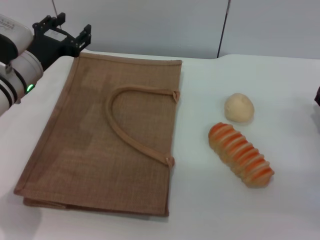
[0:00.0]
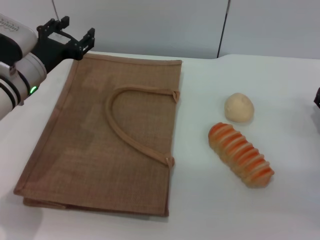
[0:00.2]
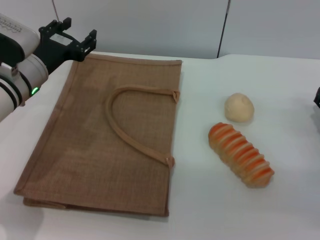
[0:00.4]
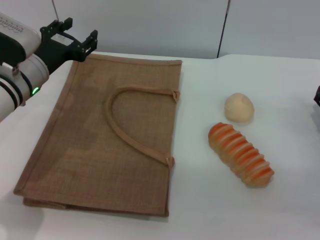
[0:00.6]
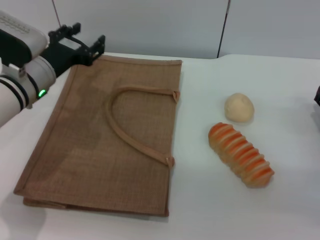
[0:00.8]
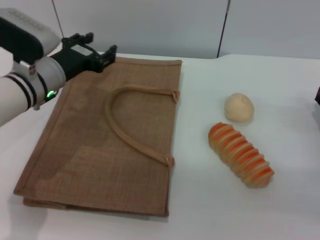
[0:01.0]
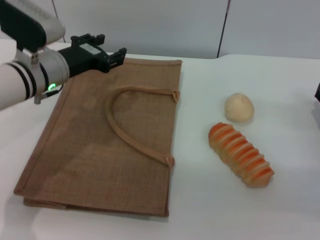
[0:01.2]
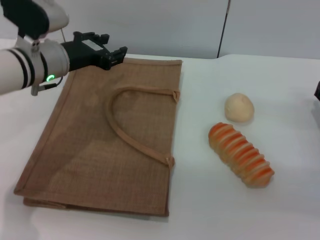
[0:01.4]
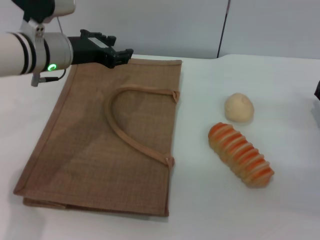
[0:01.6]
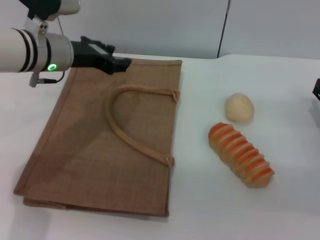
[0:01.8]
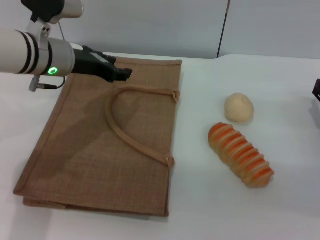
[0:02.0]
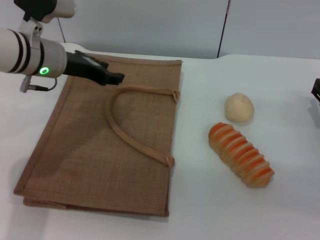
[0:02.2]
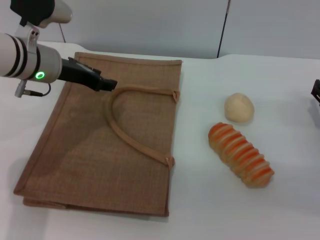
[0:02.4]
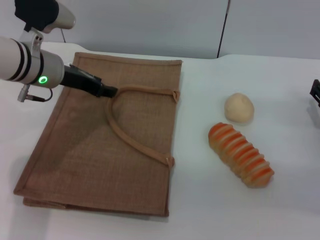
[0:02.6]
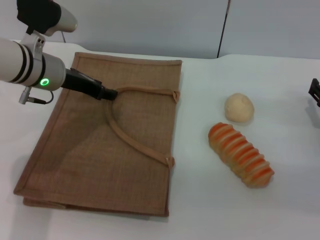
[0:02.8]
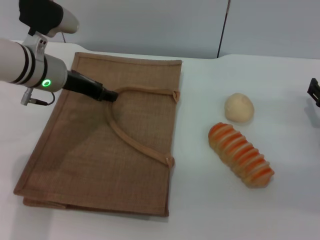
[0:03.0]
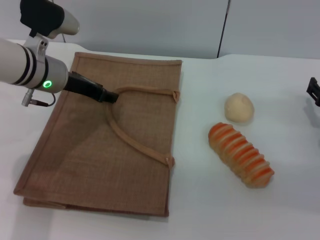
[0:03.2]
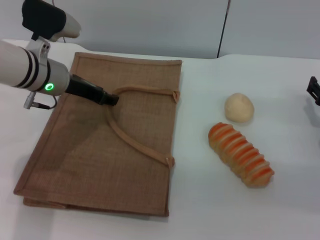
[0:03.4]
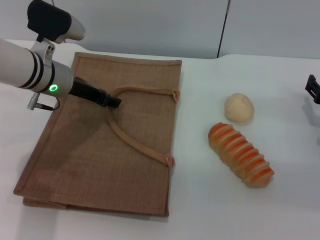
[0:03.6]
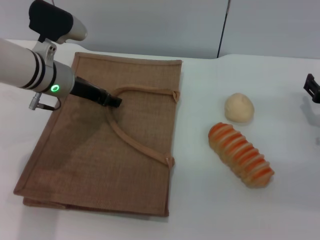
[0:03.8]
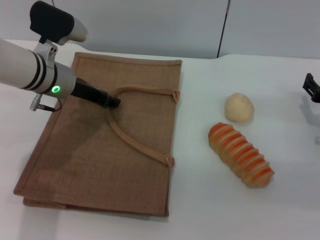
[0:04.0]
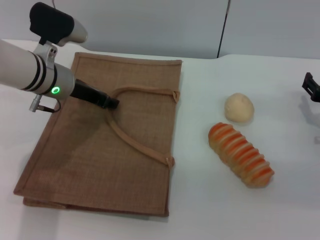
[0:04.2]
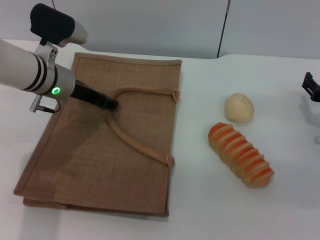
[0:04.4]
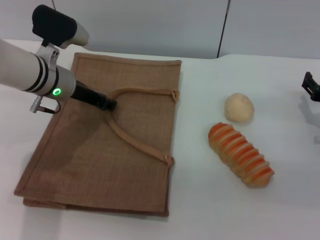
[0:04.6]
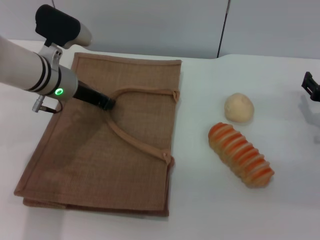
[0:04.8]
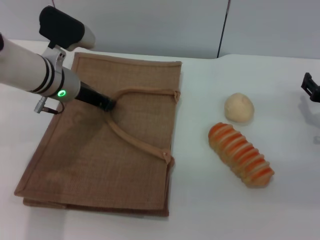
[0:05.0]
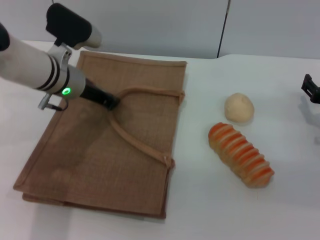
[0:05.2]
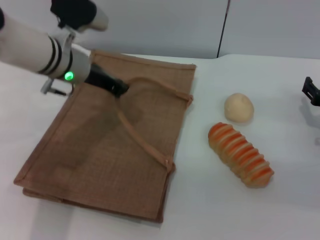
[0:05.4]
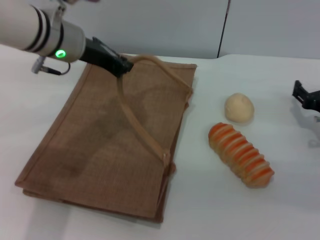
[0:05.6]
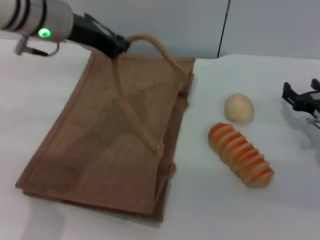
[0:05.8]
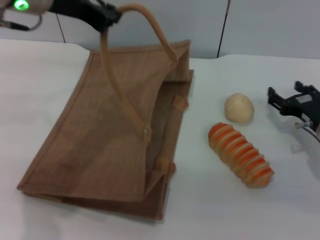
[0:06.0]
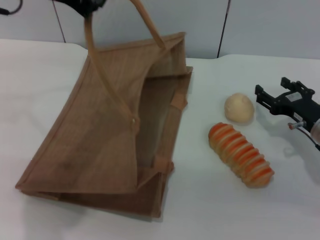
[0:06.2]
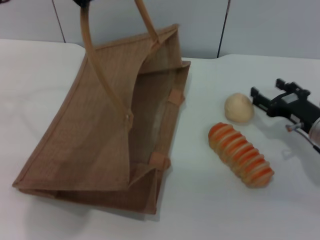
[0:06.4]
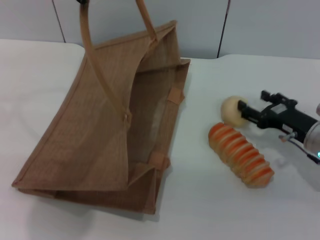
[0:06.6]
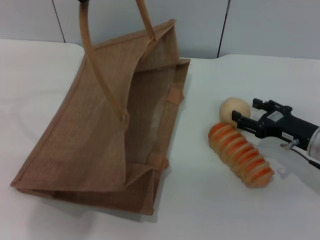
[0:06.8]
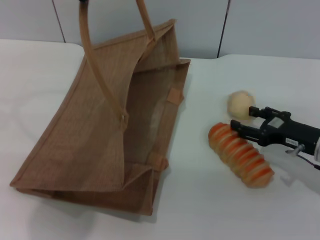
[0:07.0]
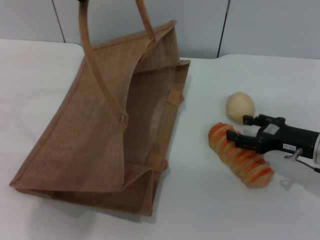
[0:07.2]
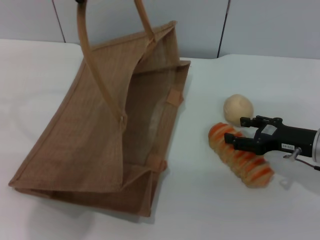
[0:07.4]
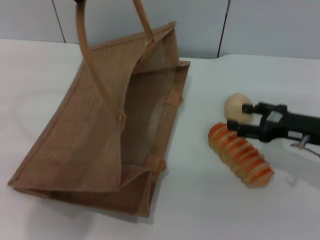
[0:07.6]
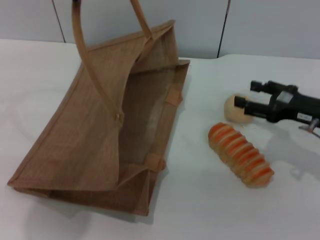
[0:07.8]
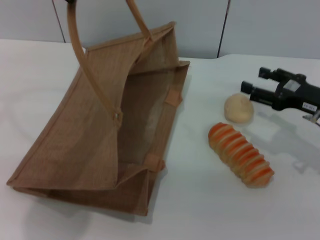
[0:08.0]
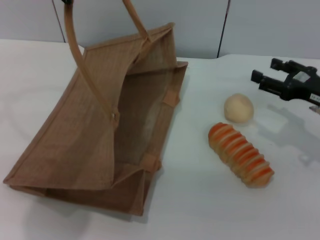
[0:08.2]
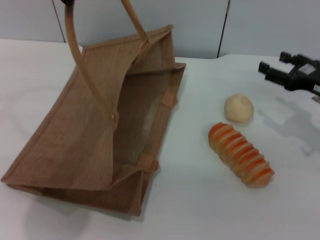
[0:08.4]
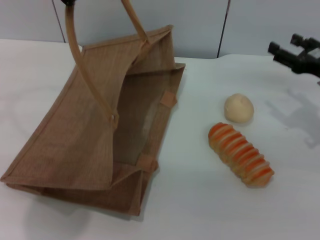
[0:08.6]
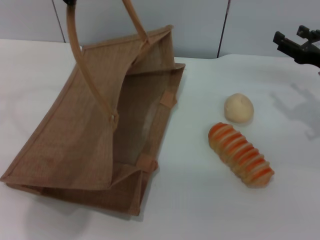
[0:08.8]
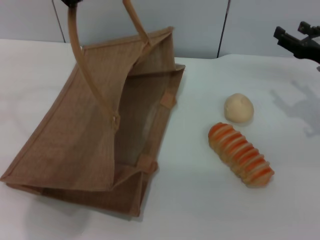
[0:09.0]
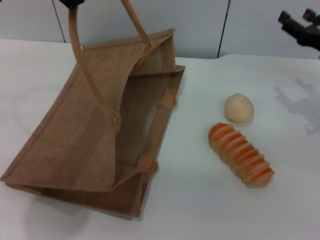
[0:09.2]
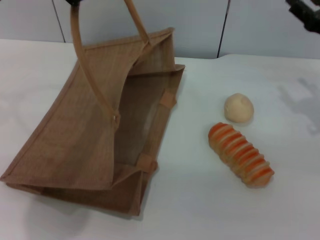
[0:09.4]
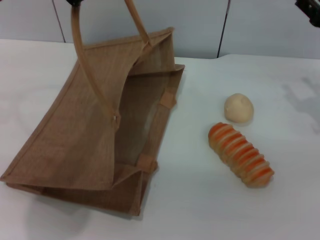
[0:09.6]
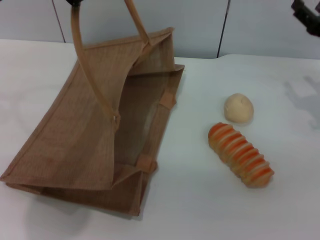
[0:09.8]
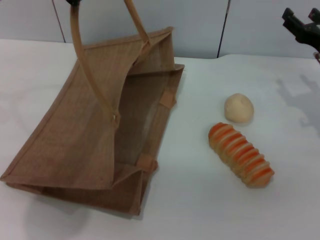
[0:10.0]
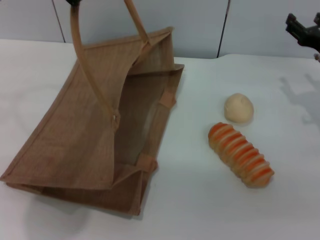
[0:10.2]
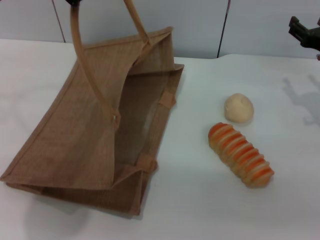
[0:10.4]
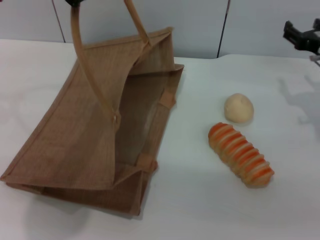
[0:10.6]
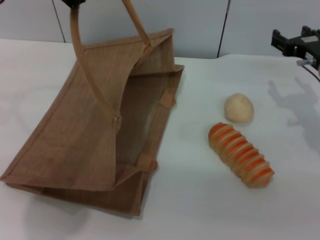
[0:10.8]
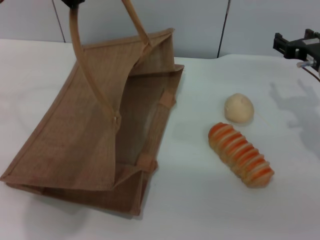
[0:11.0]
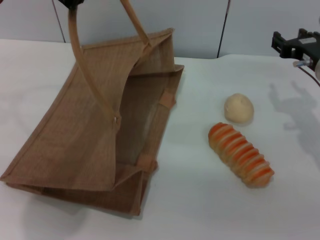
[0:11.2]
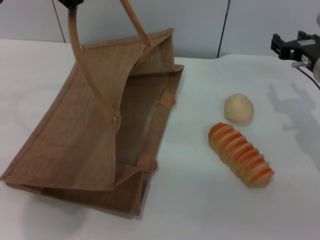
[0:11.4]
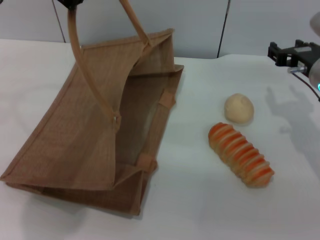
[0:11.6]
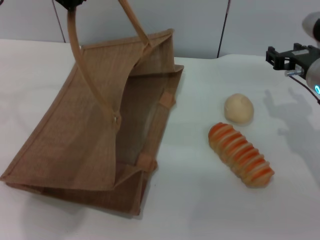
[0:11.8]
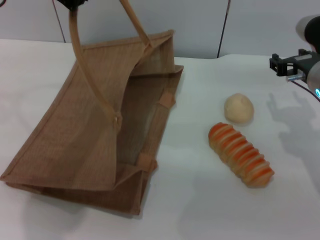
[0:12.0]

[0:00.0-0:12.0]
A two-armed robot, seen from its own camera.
Task of the whole recording: pick up the bread and egg yolk pastry from the table and place it in the brown handbag.
Step, 0:00.0 to 0:05.4: Lift the woven bag with the left gripper to open it.
0:00.0 to 0:01.6: The left gripper changes place by roughly 5 cm.
0:03.0 to 0:04.4: The grippers stay close to where they were, moving slightly.
0:04.4 to 0:06.0: The left gripper is displaced upward by about 15 cm, and closes up.
0:06.0 to 0:07.6: The left gripper is displaced upward by roughly 5 cm.
0:07.6 to 0:09.0: The right gripper moves forward, about 5 cm.
0:09.0 to 0:10.4: The grippers make only small movements.
0:10.4 to 0:12.0: The right gripper goes approximately 5 cm to the left.

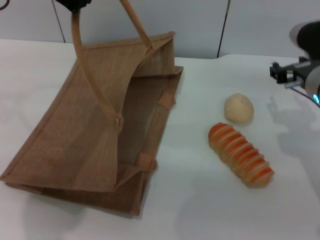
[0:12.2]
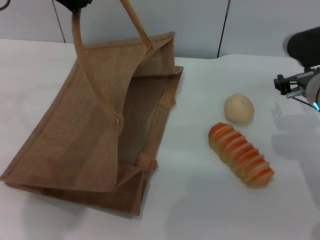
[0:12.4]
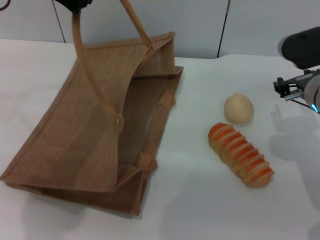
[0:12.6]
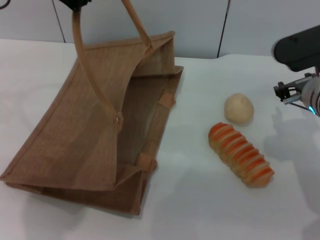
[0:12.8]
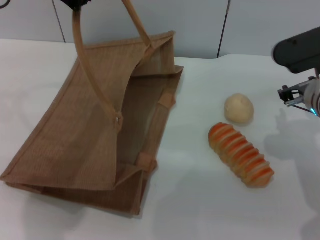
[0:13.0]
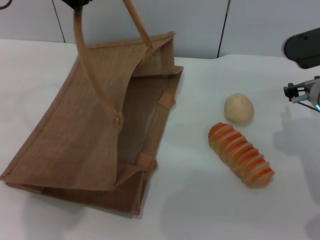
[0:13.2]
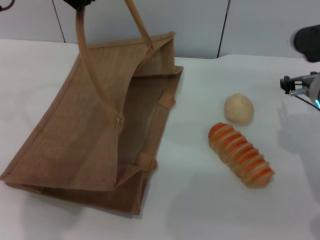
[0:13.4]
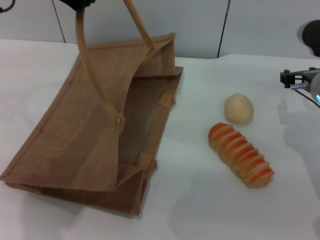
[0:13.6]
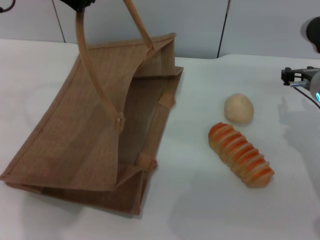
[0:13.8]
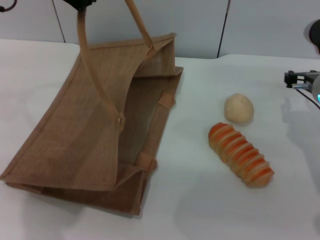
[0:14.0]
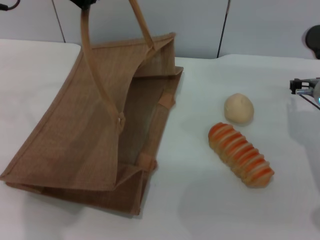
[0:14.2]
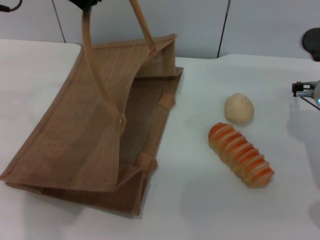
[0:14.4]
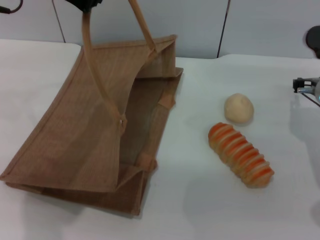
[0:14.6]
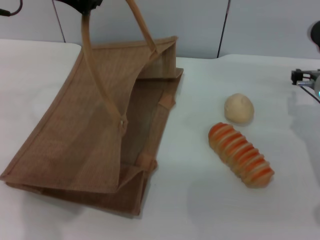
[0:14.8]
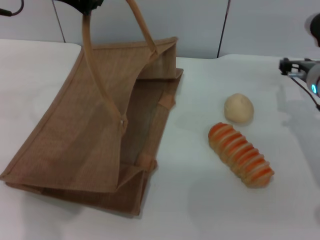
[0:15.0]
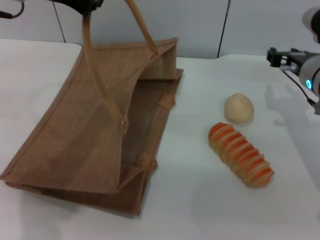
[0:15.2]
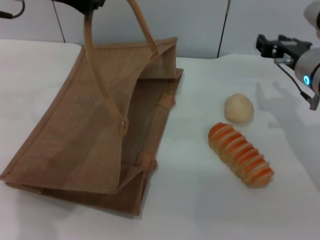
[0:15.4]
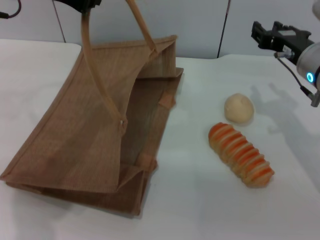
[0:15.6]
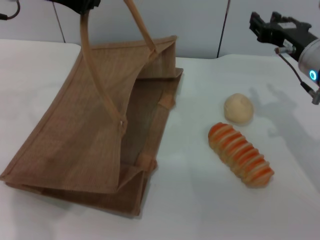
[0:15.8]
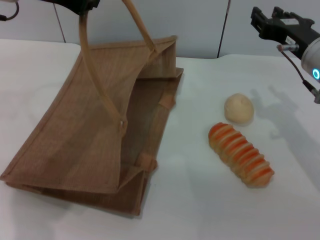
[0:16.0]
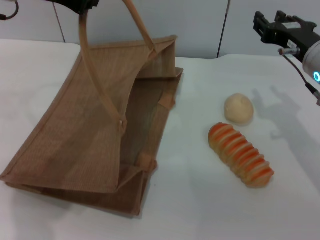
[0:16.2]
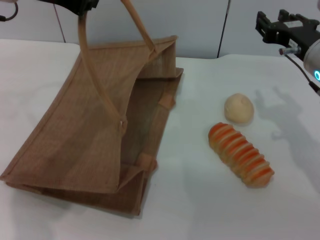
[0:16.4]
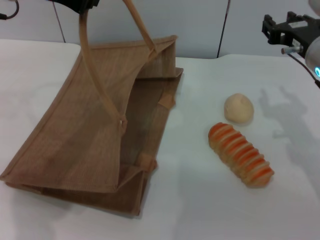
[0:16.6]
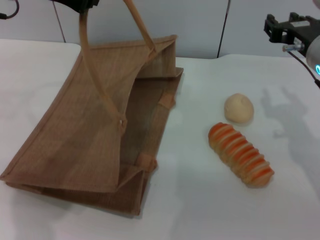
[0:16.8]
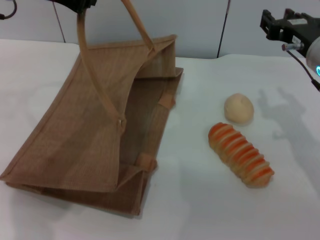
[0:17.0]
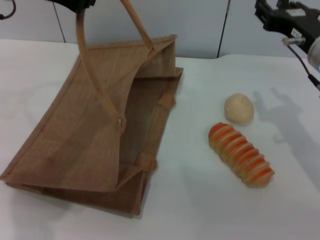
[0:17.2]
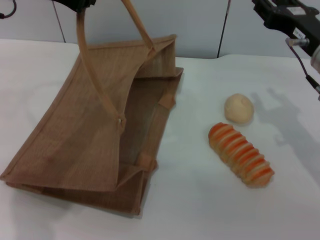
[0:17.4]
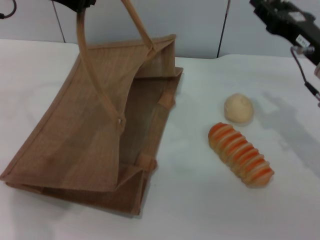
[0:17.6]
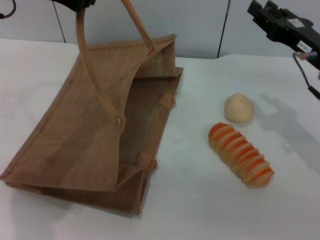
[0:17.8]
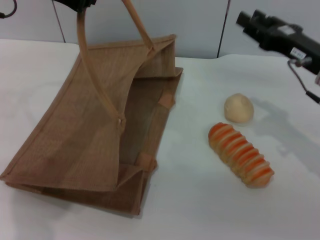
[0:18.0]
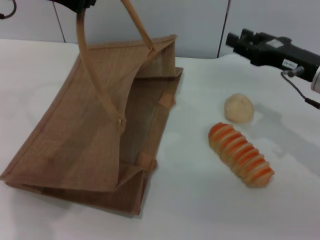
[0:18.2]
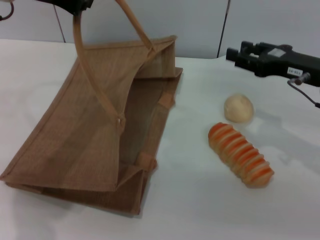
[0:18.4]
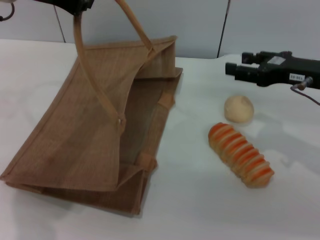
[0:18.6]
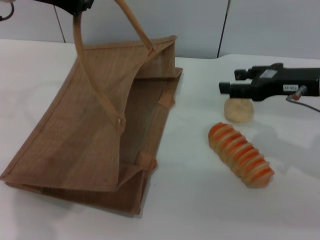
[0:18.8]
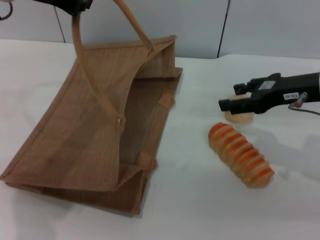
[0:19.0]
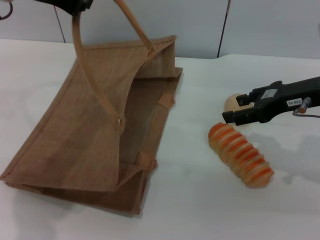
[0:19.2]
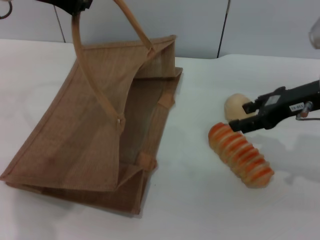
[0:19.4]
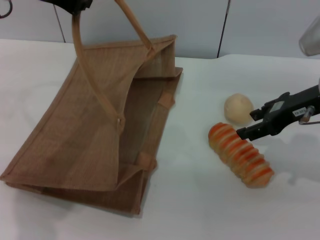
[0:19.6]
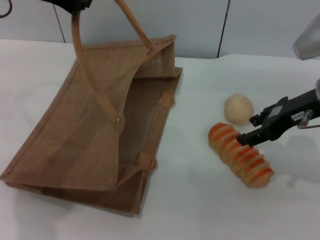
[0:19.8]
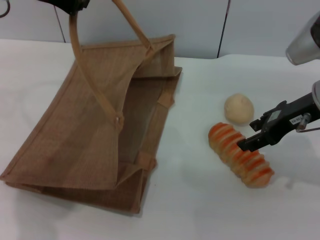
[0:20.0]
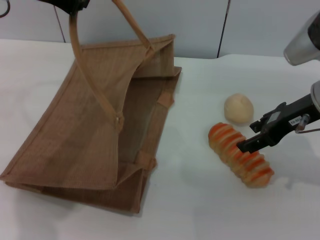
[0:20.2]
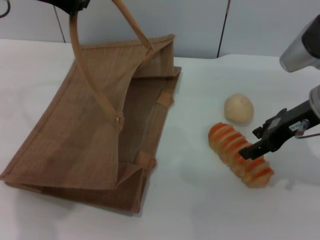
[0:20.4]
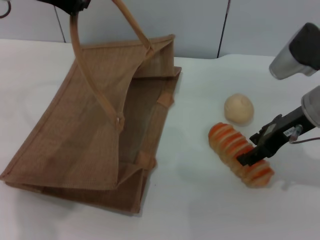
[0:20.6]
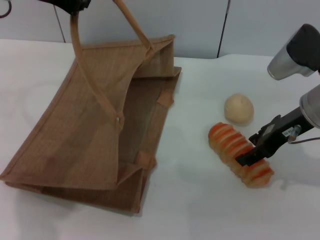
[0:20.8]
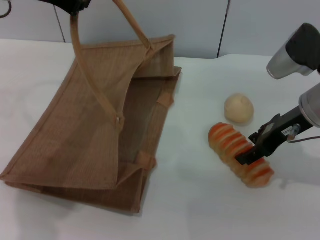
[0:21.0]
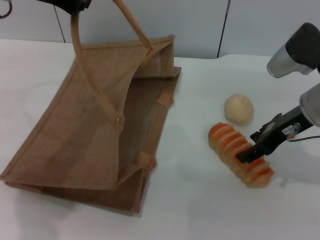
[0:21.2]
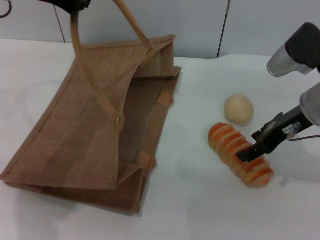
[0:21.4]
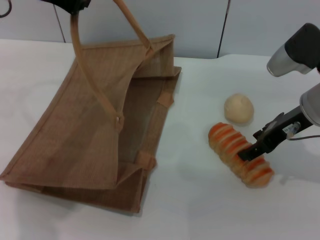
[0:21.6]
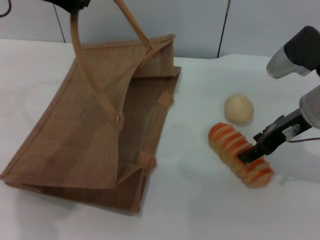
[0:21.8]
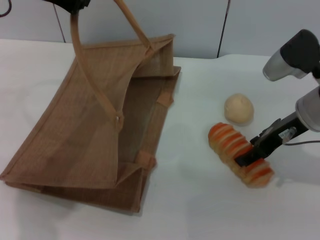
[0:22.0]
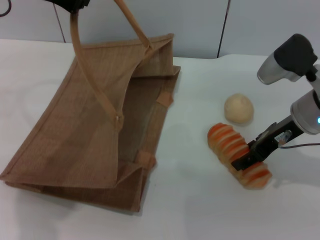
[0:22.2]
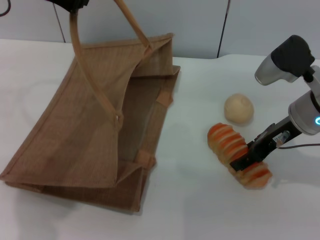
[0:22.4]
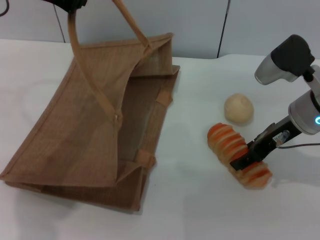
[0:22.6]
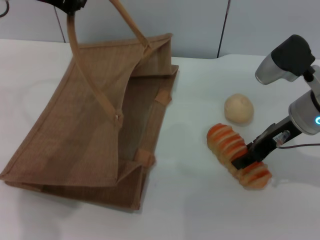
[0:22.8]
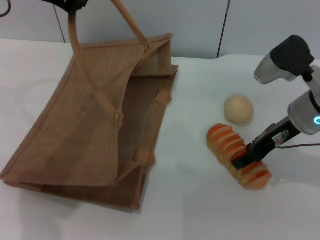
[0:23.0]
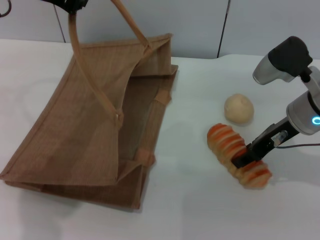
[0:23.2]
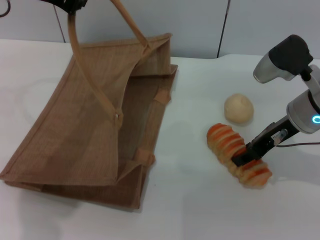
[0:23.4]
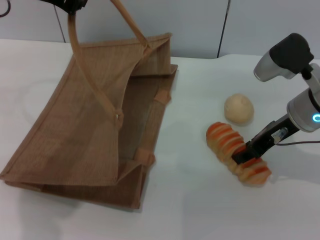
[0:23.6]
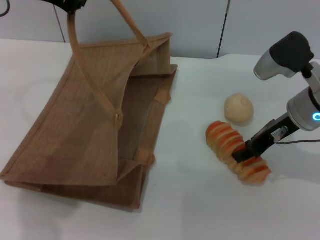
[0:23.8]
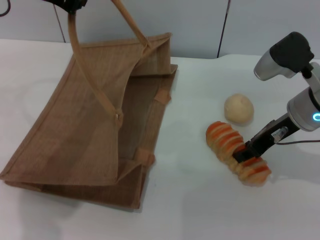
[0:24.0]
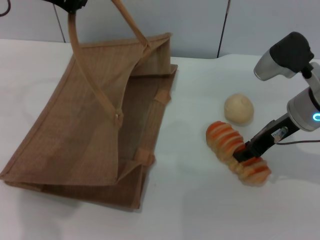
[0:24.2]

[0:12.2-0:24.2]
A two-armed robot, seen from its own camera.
Task of the whole recording: pick up the bread and egg yolk pastry from the table and place it in the brown handbag.
0:12.2 to 0:15.2: The grippers stay close to where they were, moving slightly.
0:15.2 to 0:16.6: The right gripper heads upward, covering some 5 cm.
0:16.6 to 0:18.2: The right gripper ends up roughly 5 cm from where it was.
0:18.2 to 0:19.8: The right gripper opens.
0:19.8 to 0:22.6: The grippers stay close to where they were, moving slightly.
0:22.6 to 0:24.2: The right gripper closes up.
